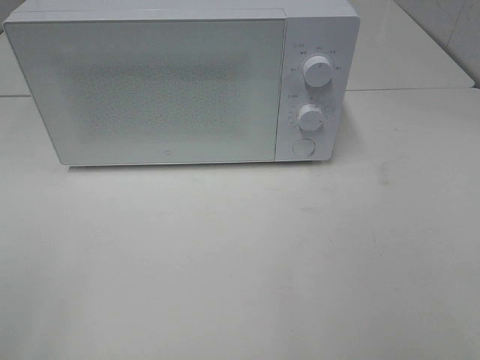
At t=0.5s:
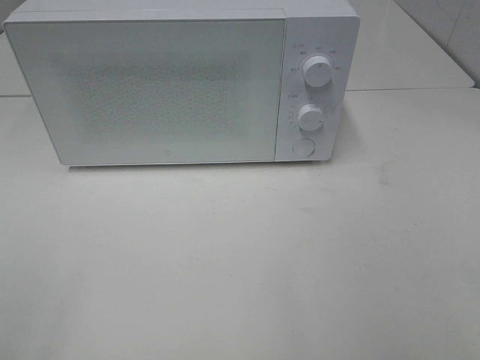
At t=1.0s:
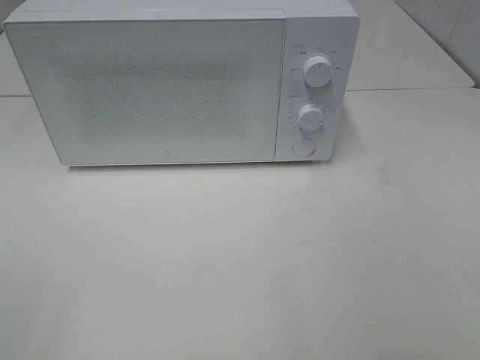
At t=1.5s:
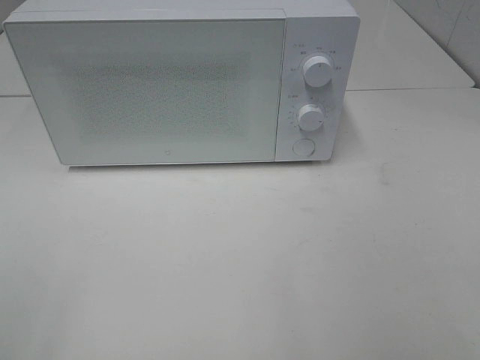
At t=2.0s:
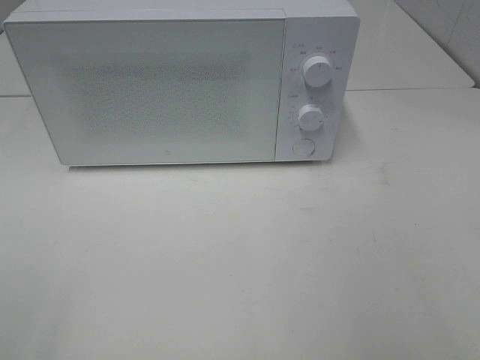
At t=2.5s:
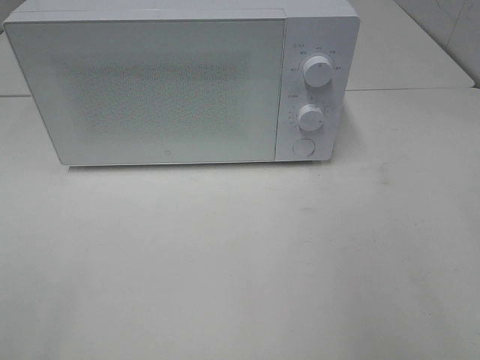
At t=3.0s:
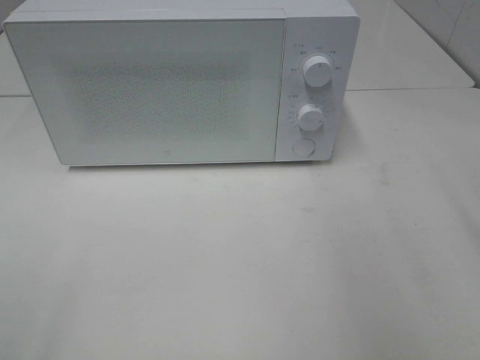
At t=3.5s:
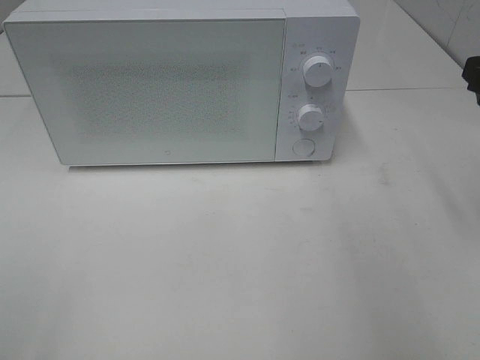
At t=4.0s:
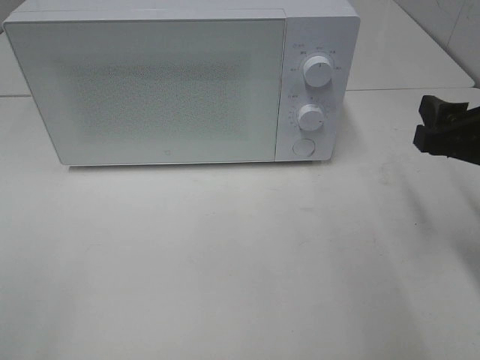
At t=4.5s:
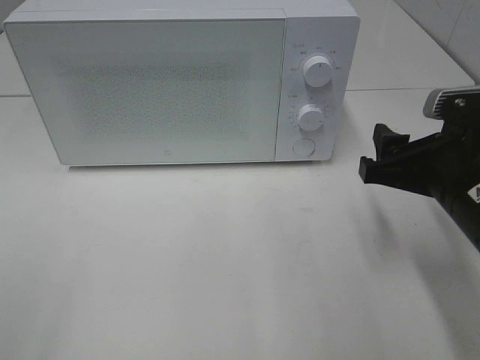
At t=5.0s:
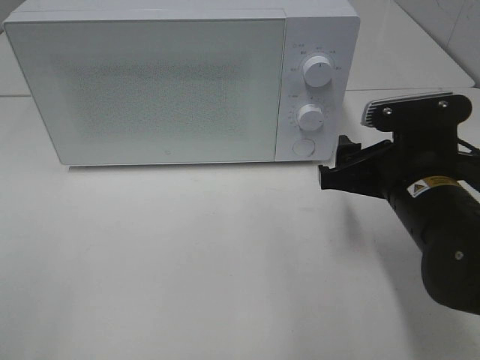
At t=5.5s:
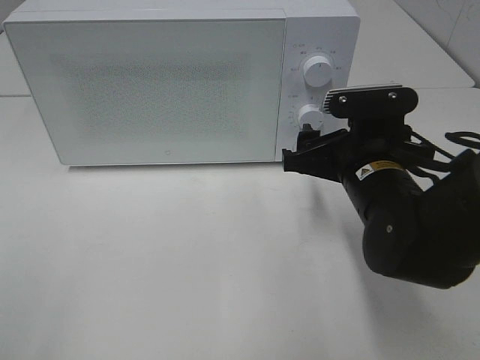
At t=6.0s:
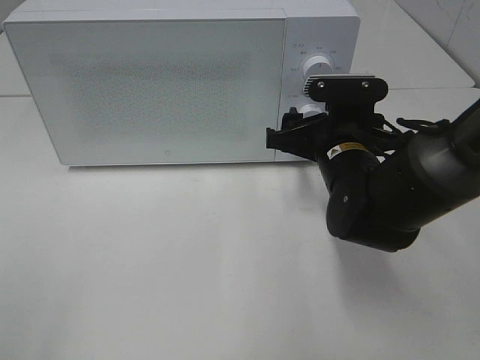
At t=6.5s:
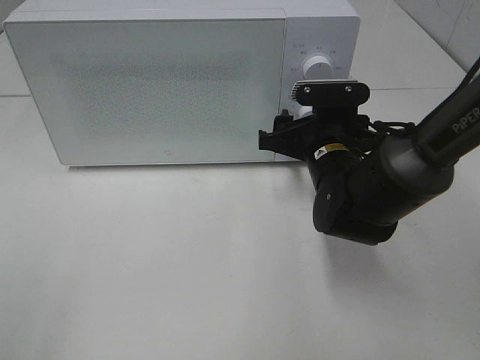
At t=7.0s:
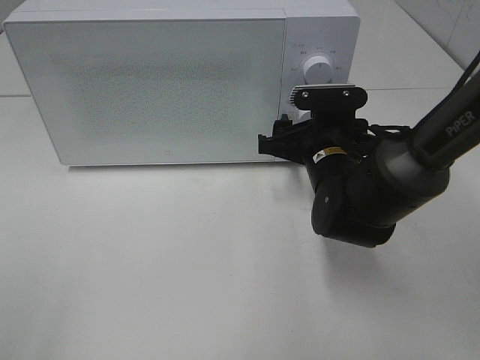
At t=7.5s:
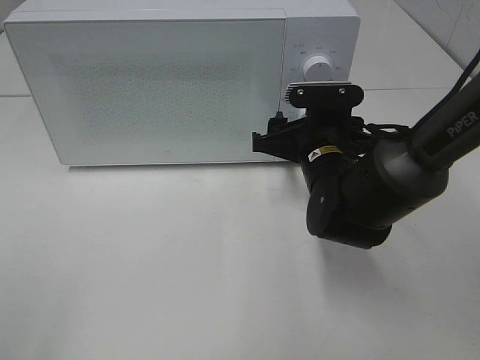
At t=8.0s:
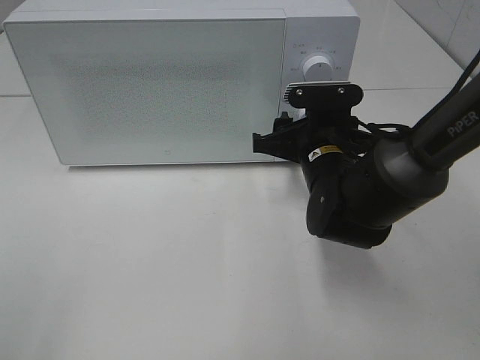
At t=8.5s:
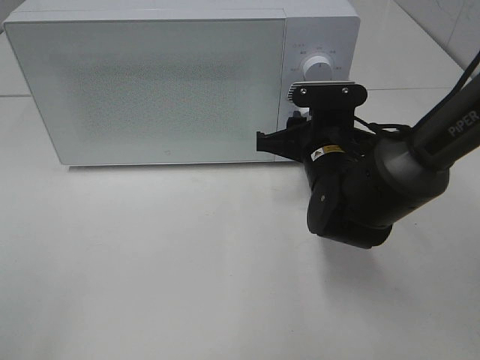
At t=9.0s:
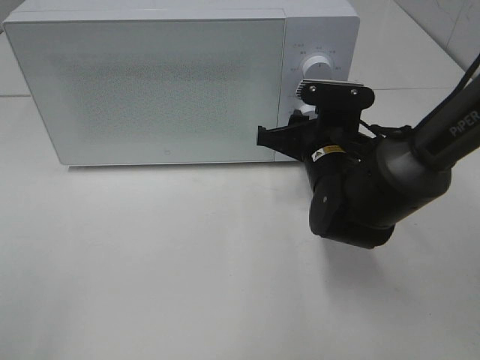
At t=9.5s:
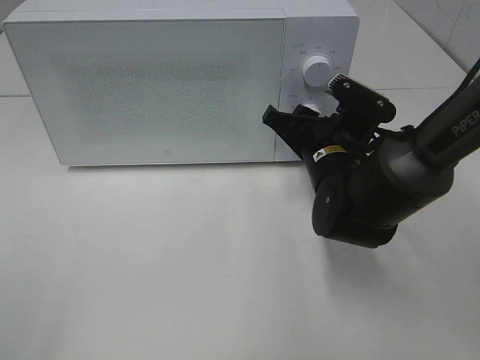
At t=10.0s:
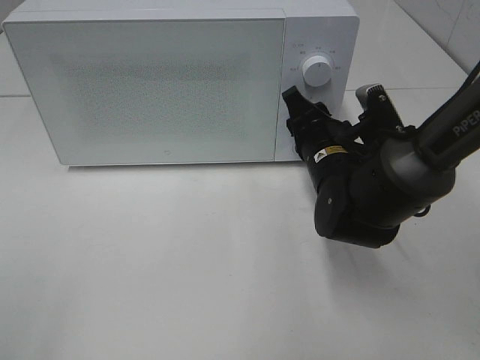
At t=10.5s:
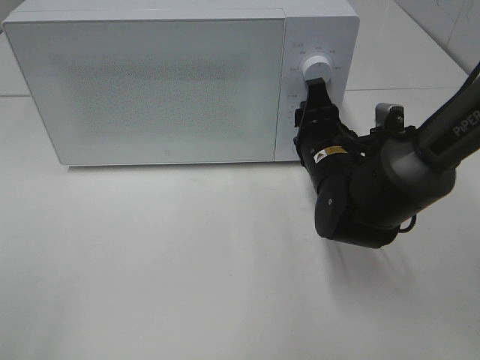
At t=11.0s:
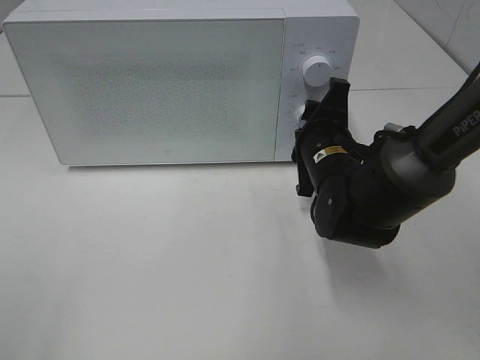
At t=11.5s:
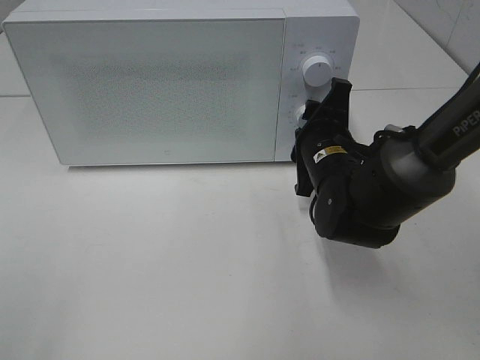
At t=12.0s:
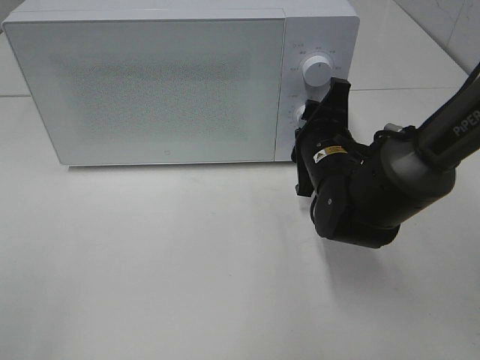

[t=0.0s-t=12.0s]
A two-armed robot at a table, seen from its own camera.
Task of the whole recording: Heat the burger.
t=2.0s to t=4.0s: The right gripper travels forward and downward by about 20 cm.
t=4.0s to t=6.0s: The right gripper travels to the left, forward and downward by roughly 15 cm.
t=6.0s to t=8.0s: The grippers stay close to where they were, moving slightly.

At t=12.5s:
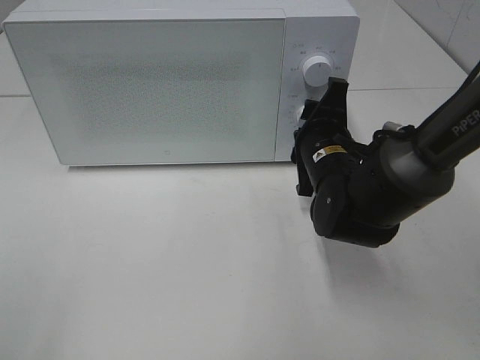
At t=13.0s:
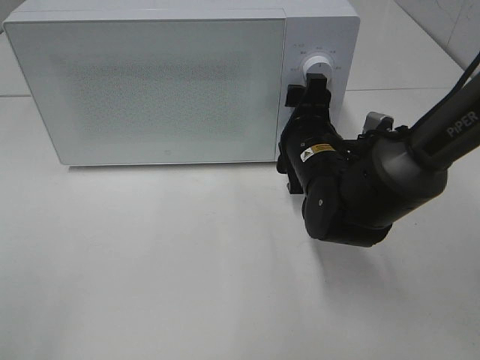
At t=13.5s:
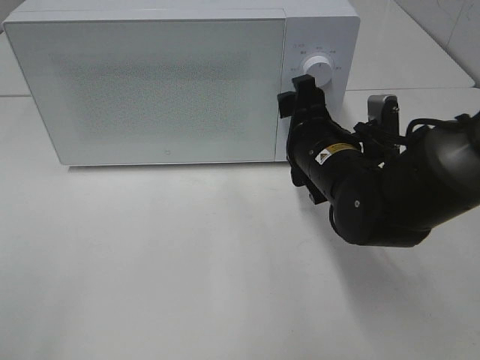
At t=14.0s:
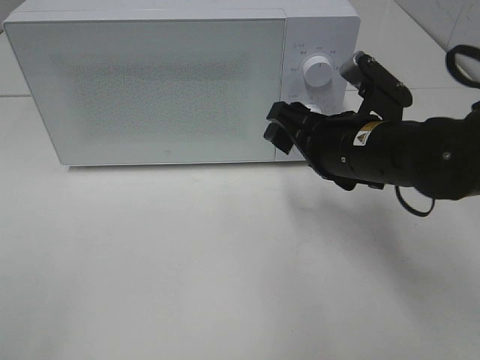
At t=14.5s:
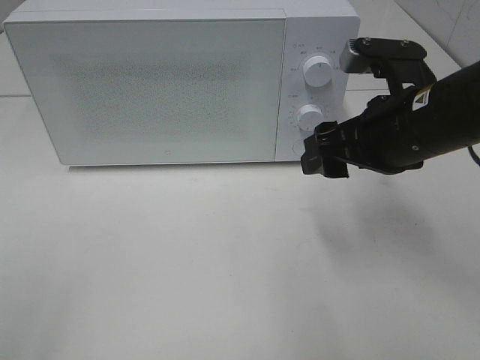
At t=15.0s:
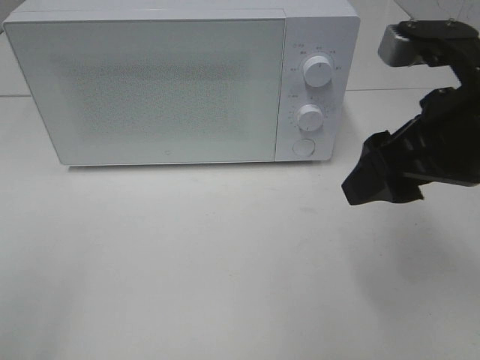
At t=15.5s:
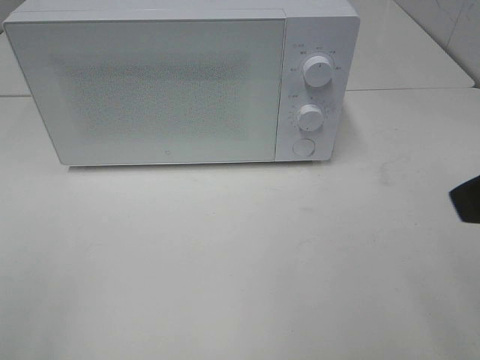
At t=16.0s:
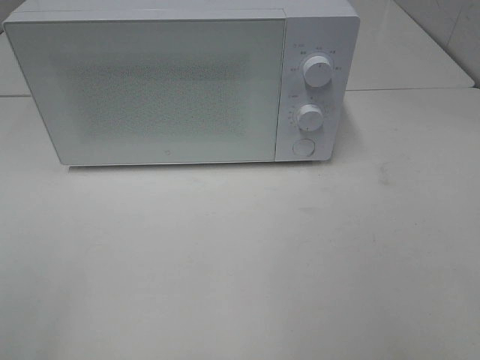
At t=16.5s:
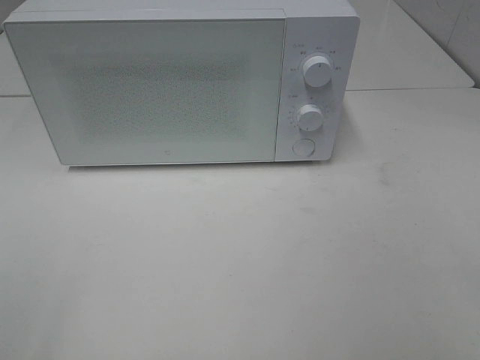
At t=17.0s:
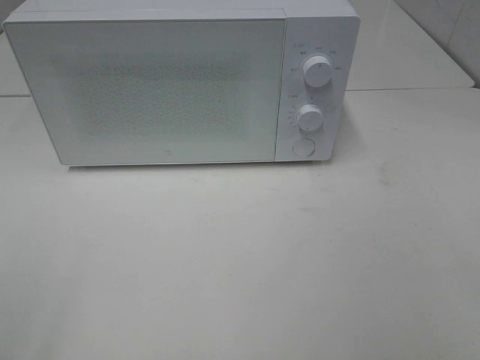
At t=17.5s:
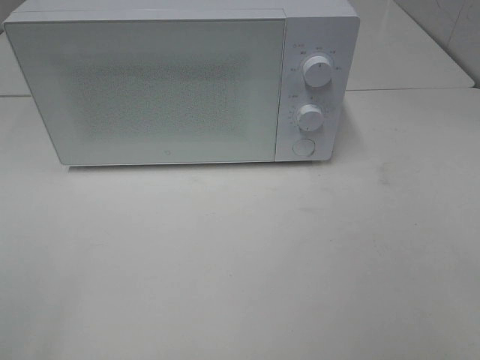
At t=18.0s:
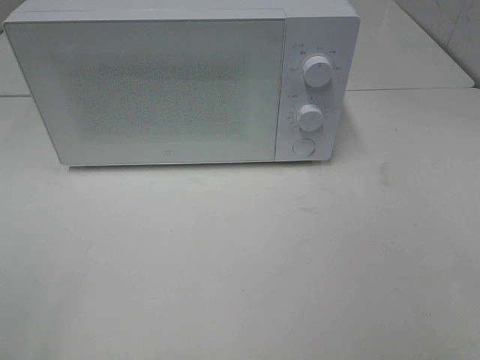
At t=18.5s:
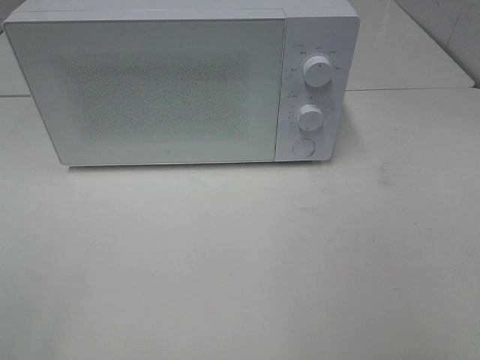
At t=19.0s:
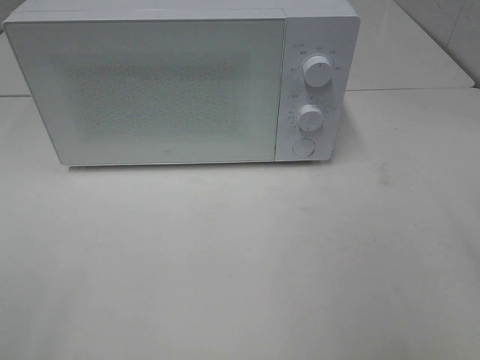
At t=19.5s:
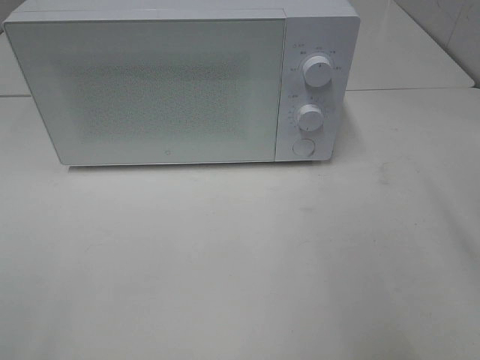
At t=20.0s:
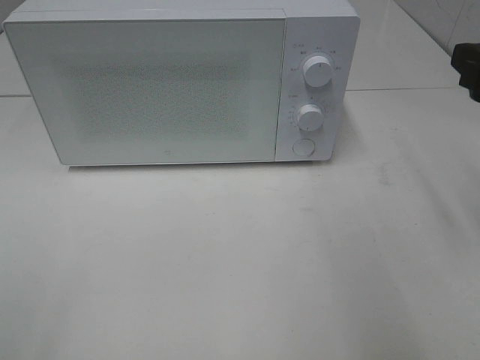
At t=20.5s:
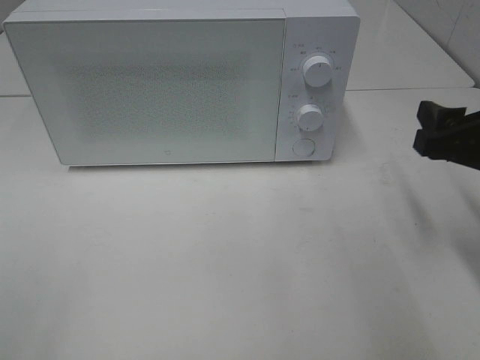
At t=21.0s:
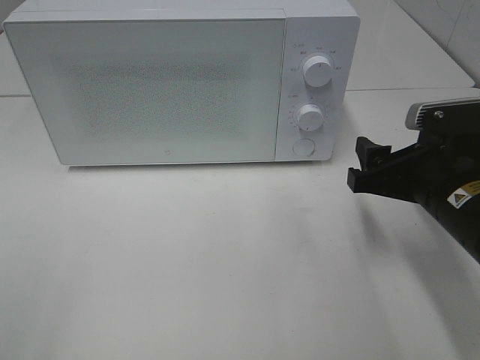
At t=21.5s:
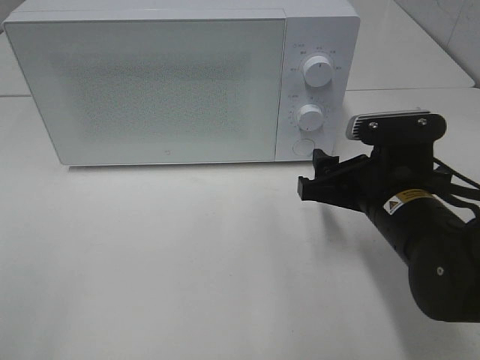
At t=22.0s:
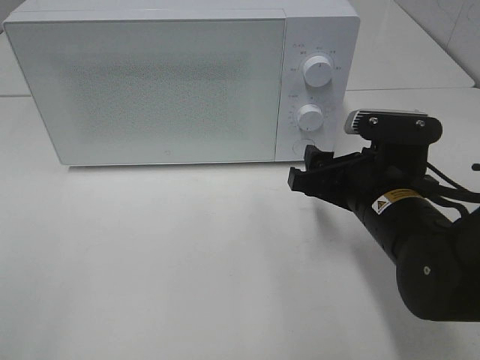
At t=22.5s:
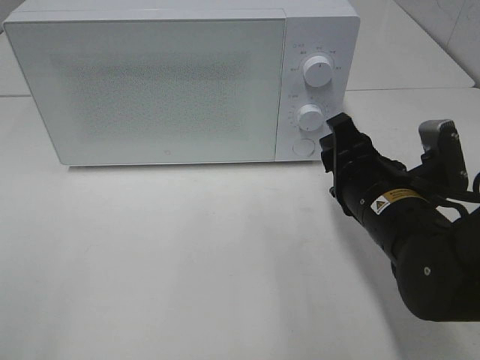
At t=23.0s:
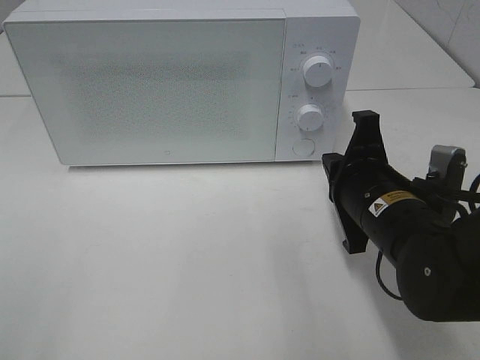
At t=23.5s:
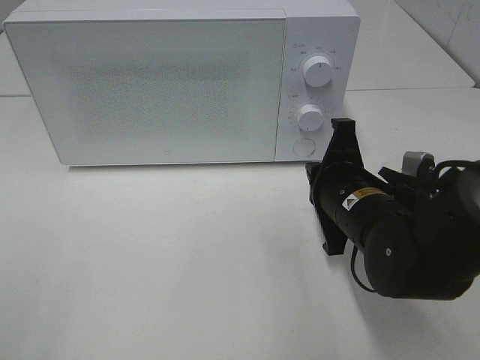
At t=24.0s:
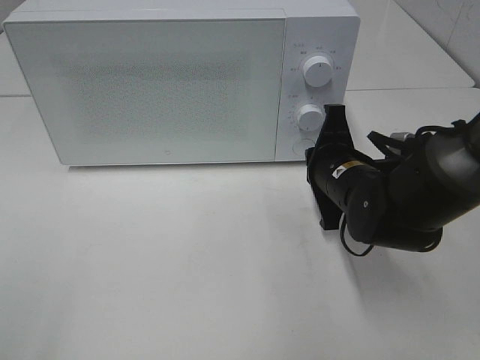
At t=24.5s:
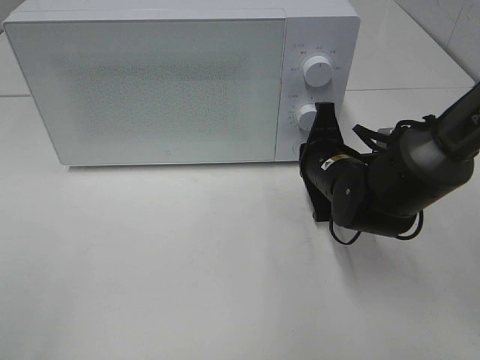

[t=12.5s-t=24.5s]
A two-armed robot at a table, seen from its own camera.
Task of the whole recording: Heat the burger.
t=12.5s to t=14.5s: The right gripper is displaced upward, backward and to the right by approximately 15 cm.
t=14.5s to t=16.5s: The right gripper moves backward and to the right, some 30 cm.
t=18.5s to t=20.5s: The right gripper moves forward and downward, about 20 cm.
t=20.5s to t=22.5s: The right gripper is displaced to the left and downward by some 15 cm.
t=22.5s to t=24.5s: The right gripper travels forward by some 10 cm, and closes.

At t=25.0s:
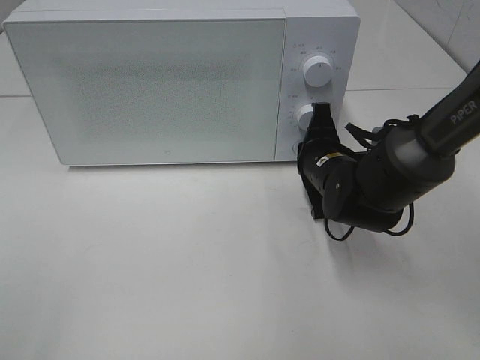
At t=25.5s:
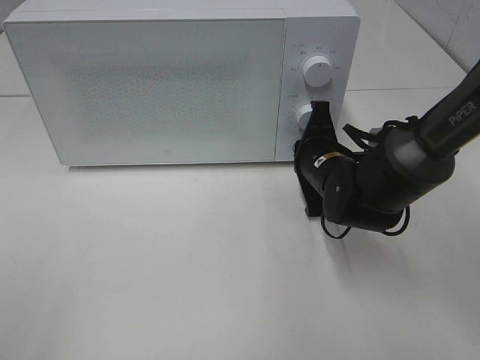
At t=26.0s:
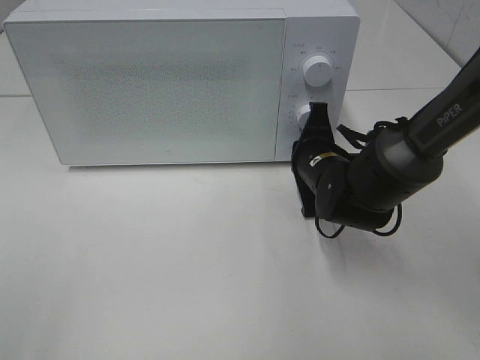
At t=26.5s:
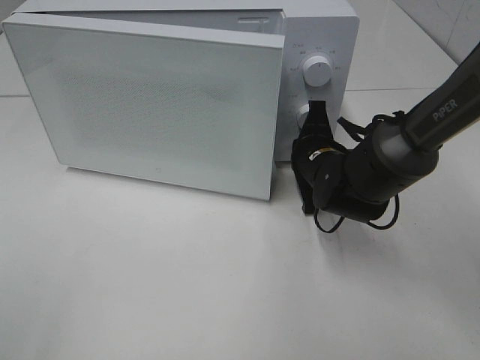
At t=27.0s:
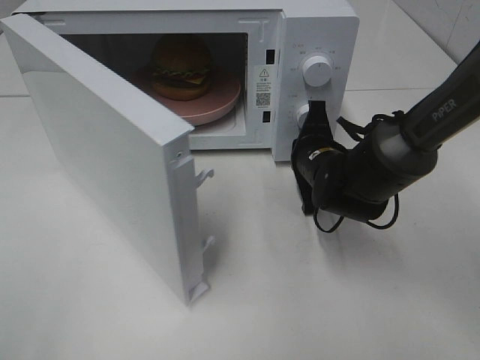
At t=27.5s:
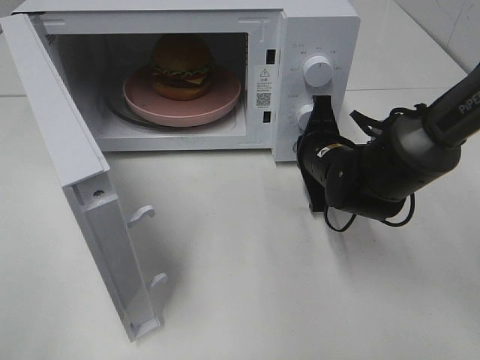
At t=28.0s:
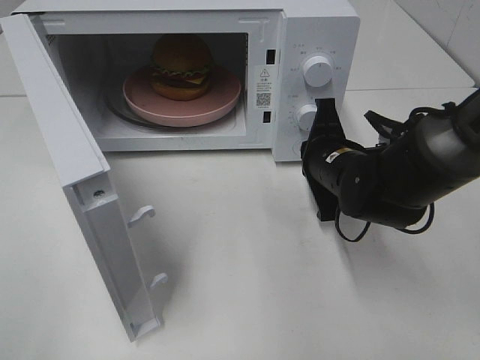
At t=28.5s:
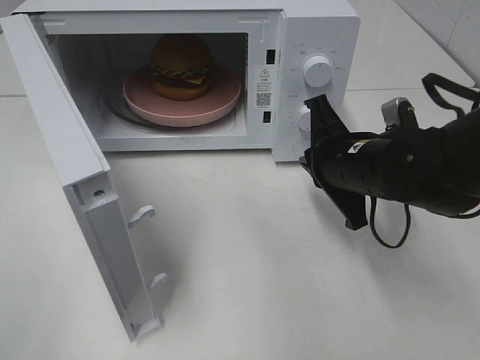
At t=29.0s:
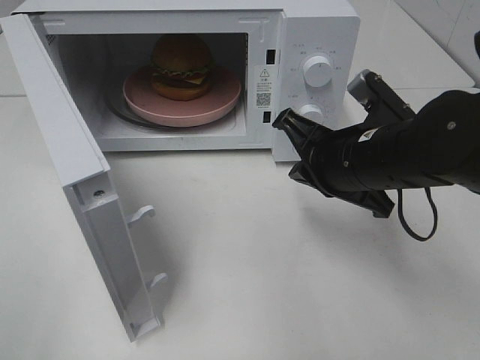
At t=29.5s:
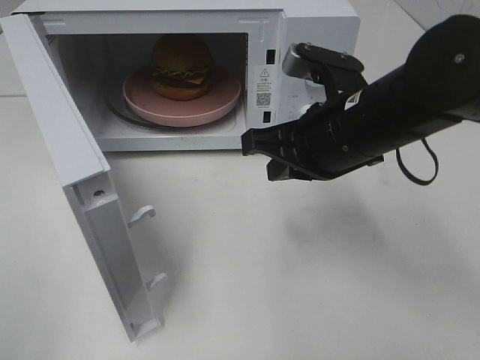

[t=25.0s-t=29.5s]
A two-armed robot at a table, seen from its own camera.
Task of the whole recording: Heat the burger.
Step, t=25.0s to t=28.0s: Right hand: press the switch.
t=27.0s to t=29.5s: The right gripper moves upward and backward, roughly 15 cm.
